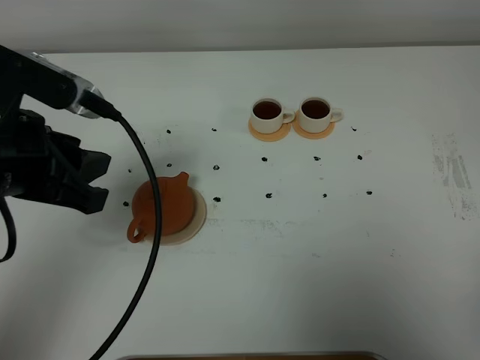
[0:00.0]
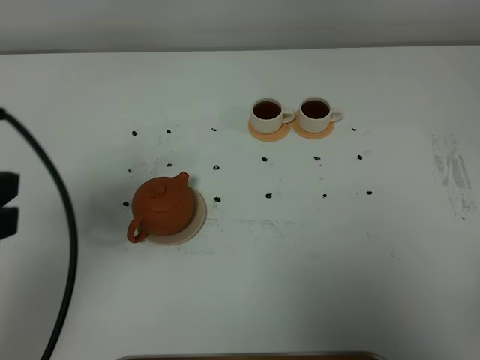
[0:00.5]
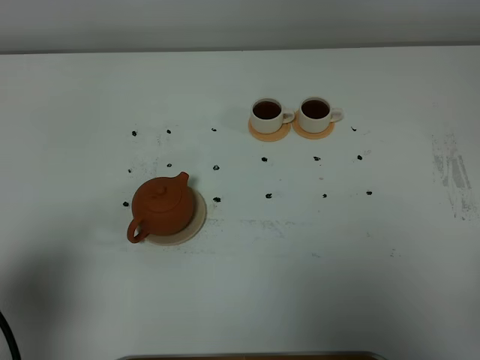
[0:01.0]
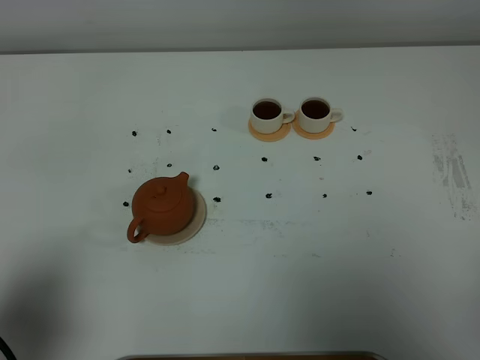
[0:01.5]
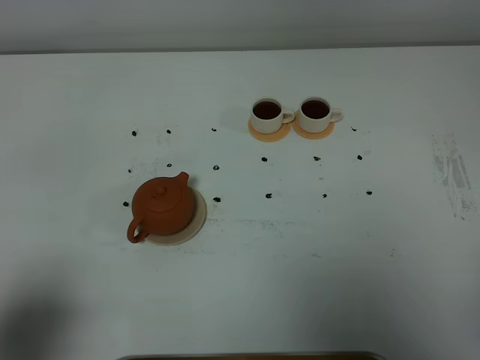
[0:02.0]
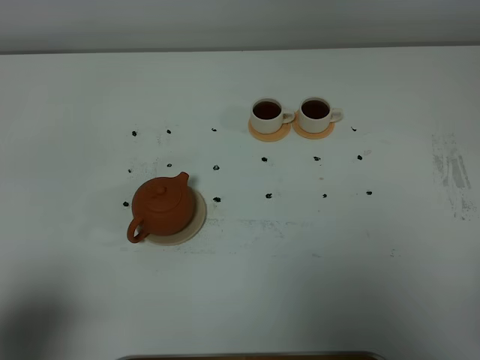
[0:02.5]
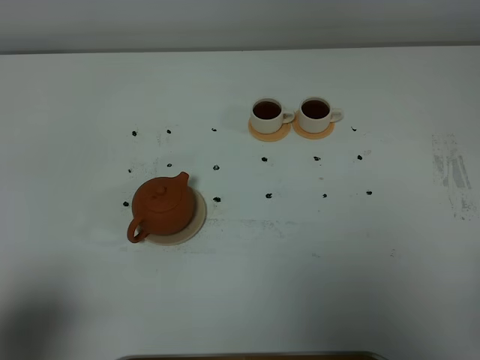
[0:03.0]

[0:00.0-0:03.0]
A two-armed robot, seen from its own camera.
Task of the whole recording: grasp the brown teapot and pour the tea into the two white teacups one by one, put the brown teapot back in its original place.
0:00.0 to 0:01.5: The left gripper shifts about 20 cm backward and to the left.
